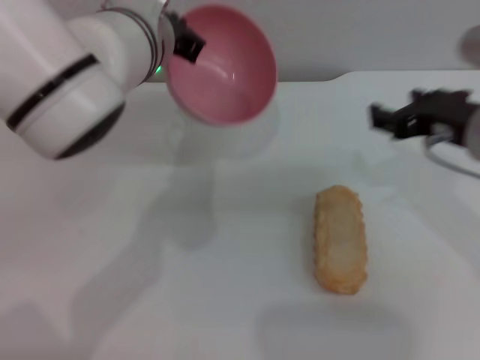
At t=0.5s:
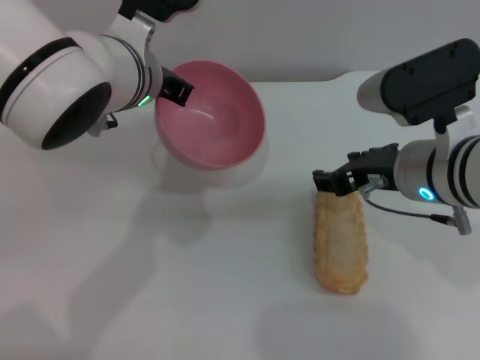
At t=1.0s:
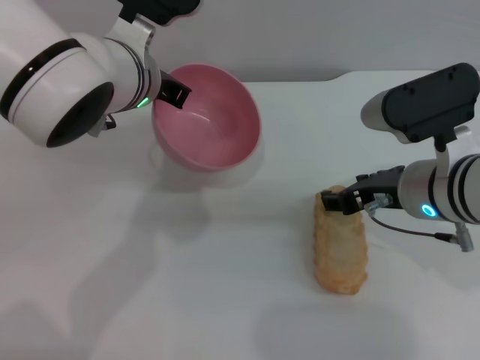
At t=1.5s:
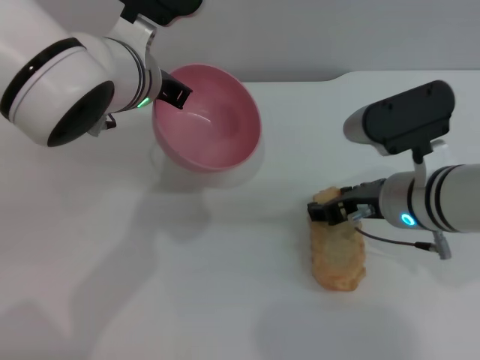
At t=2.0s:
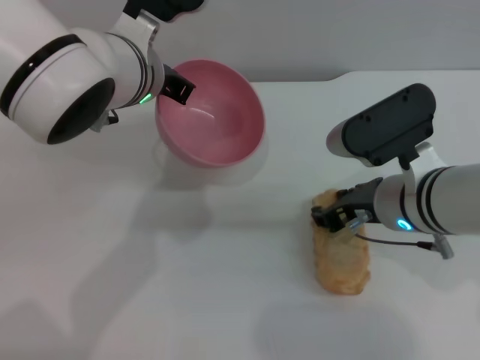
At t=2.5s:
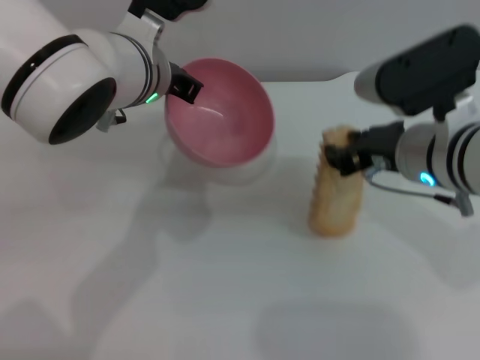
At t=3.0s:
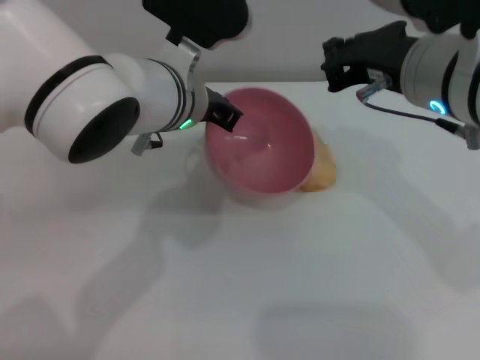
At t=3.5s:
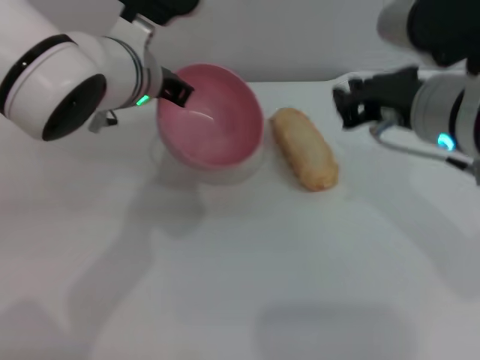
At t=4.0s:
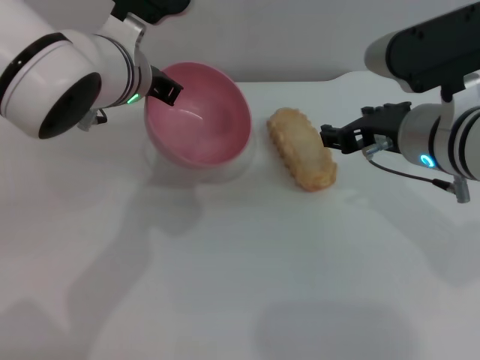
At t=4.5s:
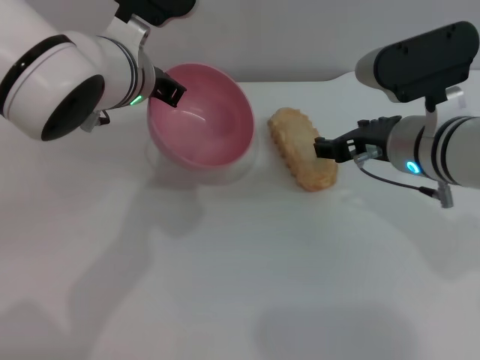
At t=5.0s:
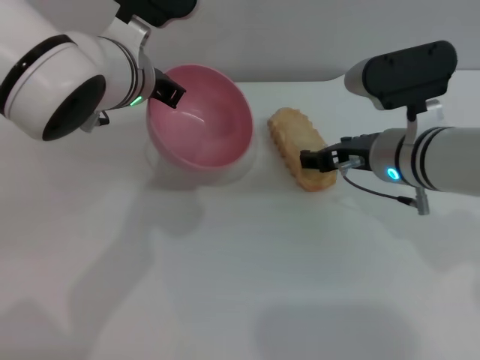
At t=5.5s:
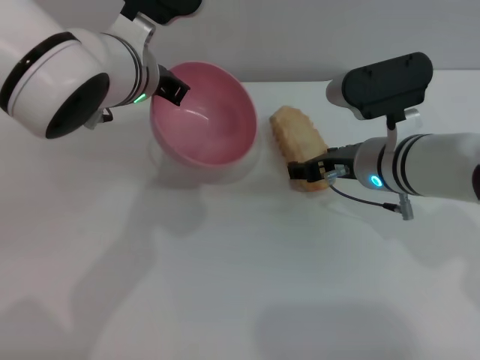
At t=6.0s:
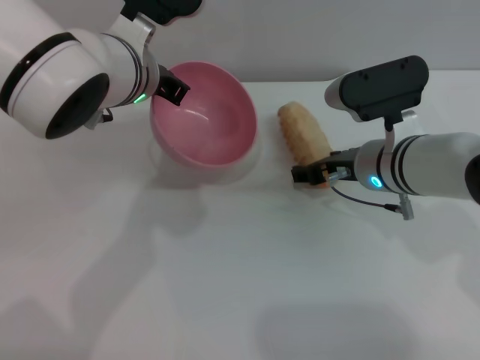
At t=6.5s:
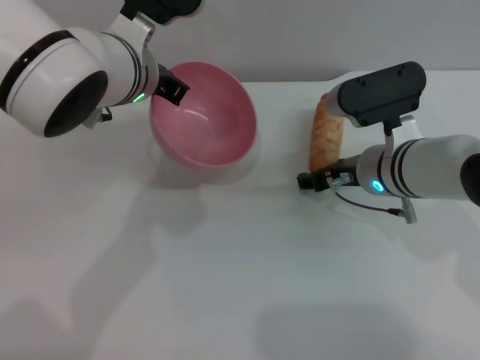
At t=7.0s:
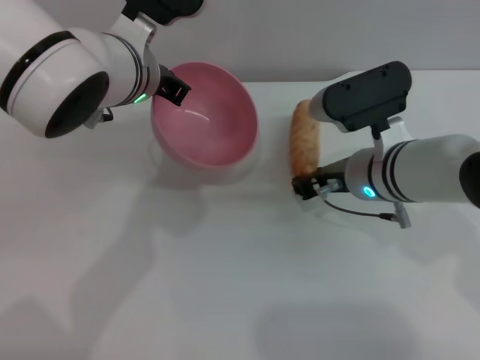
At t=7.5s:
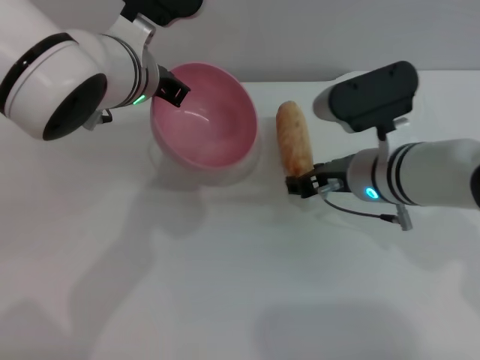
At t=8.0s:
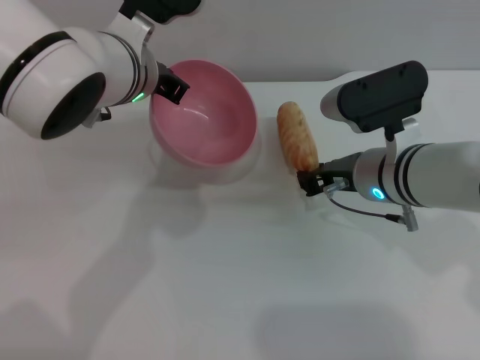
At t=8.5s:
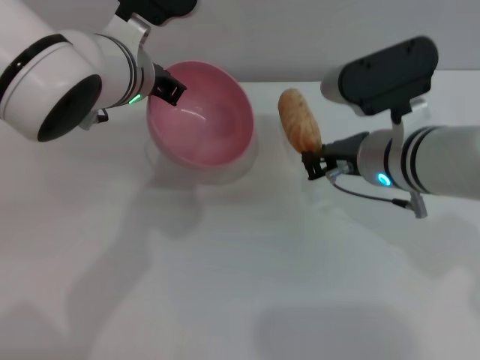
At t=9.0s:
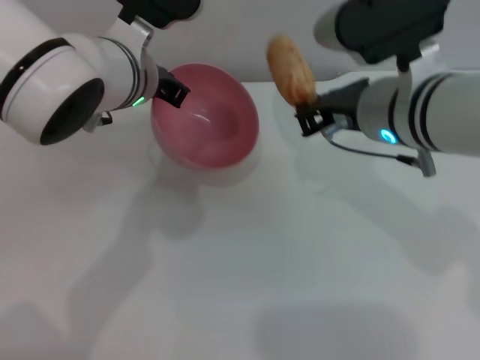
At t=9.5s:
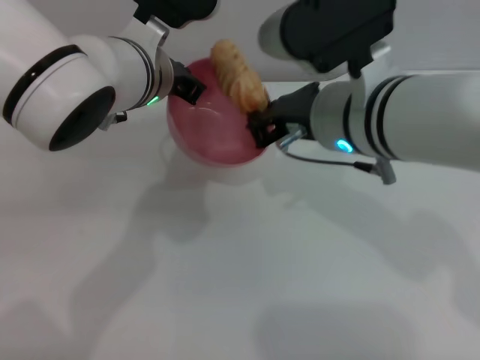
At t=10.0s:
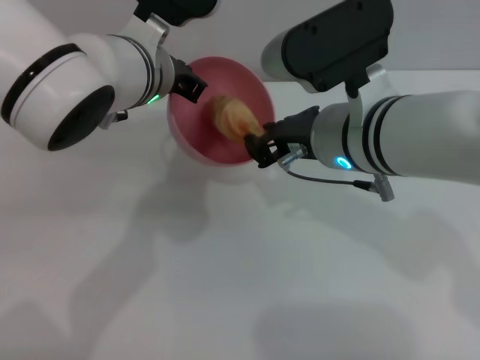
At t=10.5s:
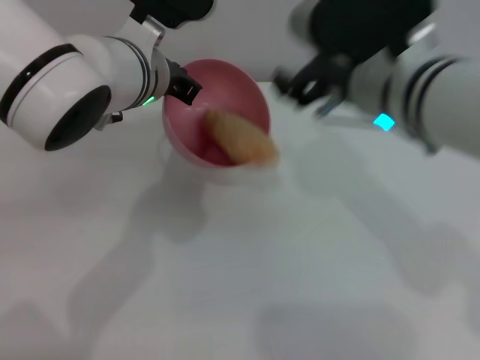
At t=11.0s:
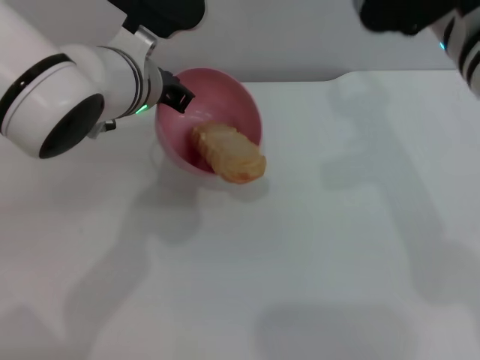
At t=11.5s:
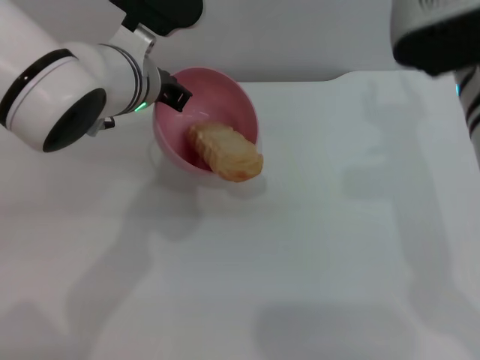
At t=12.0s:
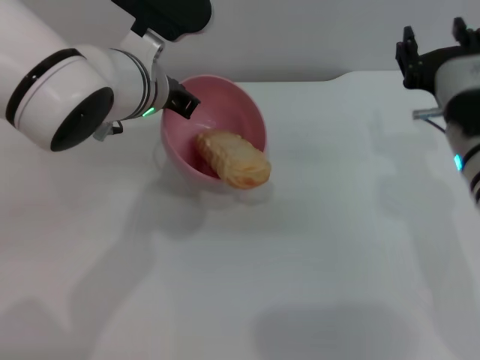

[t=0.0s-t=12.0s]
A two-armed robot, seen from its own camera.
Task of the whole recording: put the bread into the pink bowl and pour it out repeatedly.
Step, t=0.0s to t=8.5s: Pick up the bread with the right gripper.
Step, t=9.0s to t=10.5s: Place the bread into the bowl.
t=0.0s to t=2.0s: The right gripper goes some 10 cm downward and to the left.
t=2.0s to t=4.0s: The right gripper goes some 5 cm upward, and closes and opens again.
t=4.0s to t=6.0s: The right gripper travels downward by some 10 cm.
t=6.0s to t=8.0s: The right gripper closes.
t=8.0s to t=10.0s: The right gripper moves upward and to the left, about 10 cm.
t=10.0s to t=12.0s: The right gripper heads to the right, covering roughly 10 cm, and opens up.

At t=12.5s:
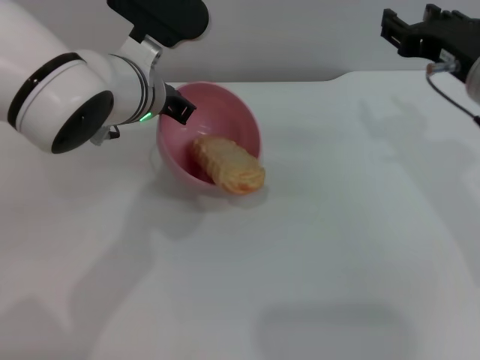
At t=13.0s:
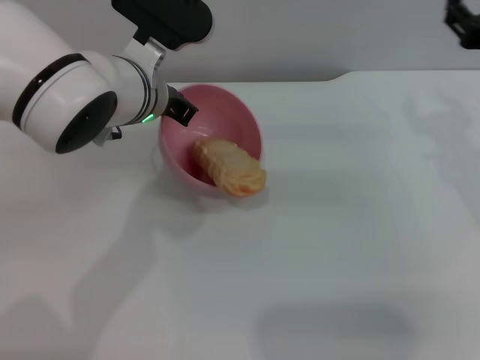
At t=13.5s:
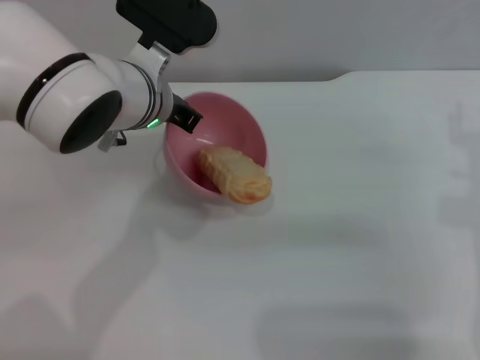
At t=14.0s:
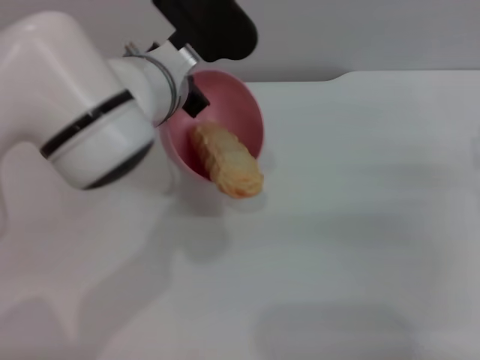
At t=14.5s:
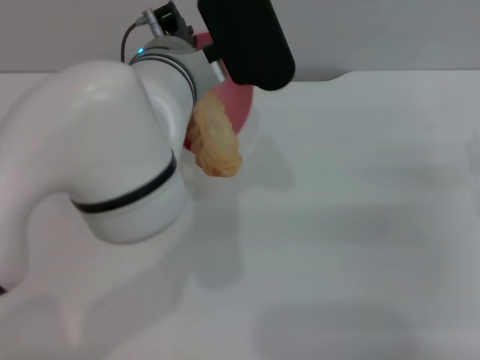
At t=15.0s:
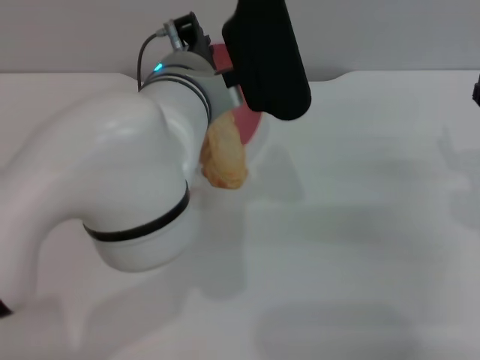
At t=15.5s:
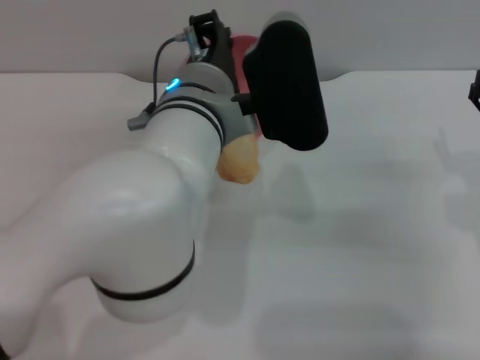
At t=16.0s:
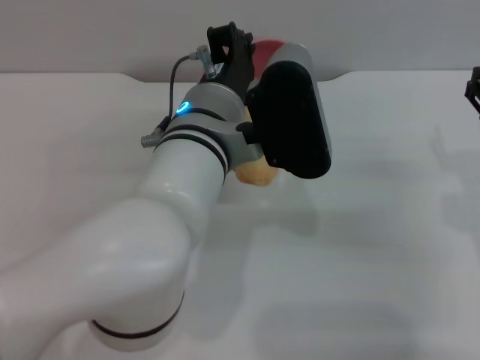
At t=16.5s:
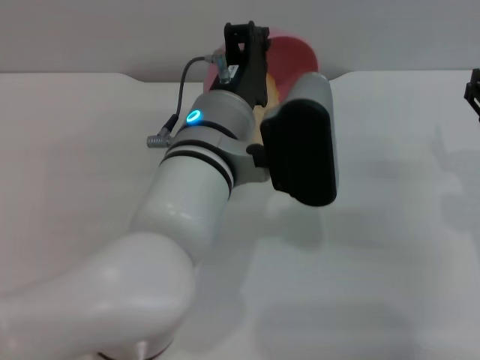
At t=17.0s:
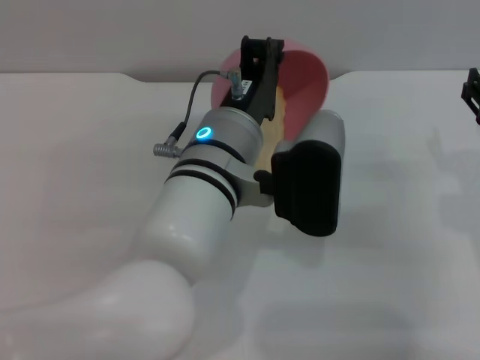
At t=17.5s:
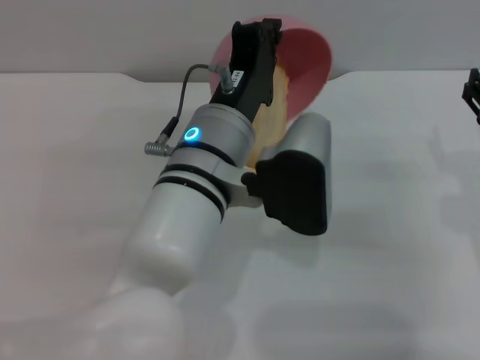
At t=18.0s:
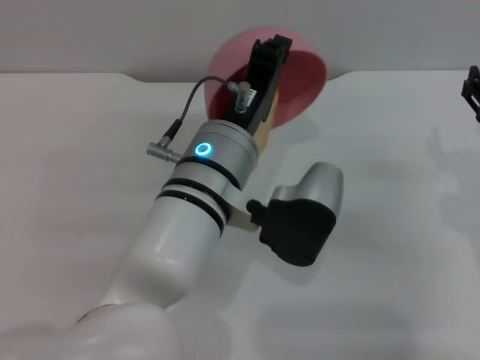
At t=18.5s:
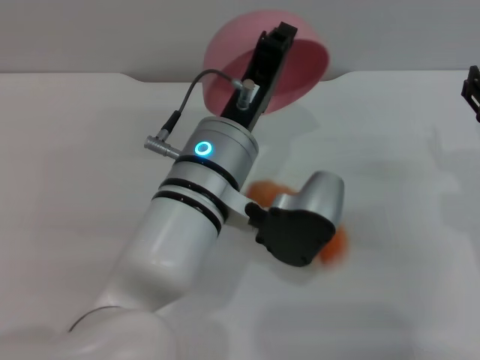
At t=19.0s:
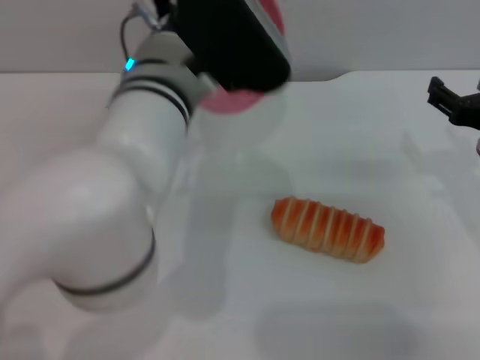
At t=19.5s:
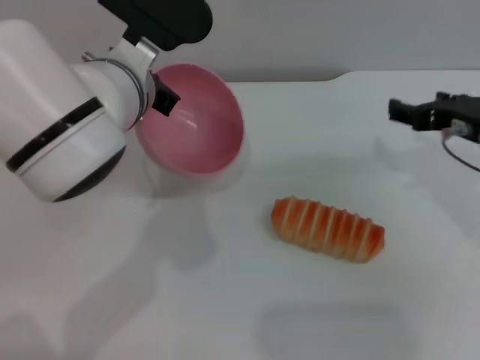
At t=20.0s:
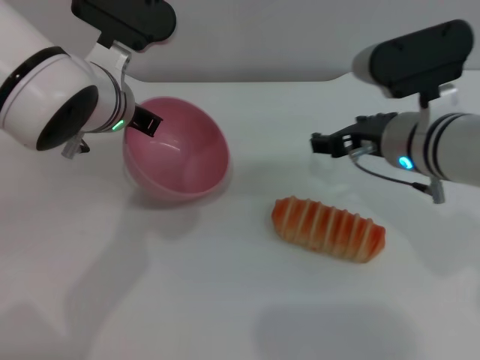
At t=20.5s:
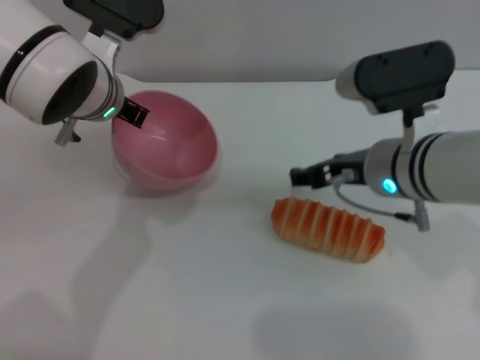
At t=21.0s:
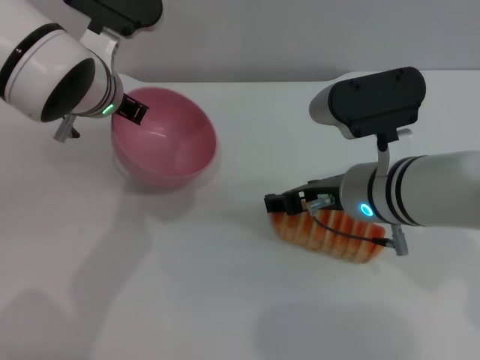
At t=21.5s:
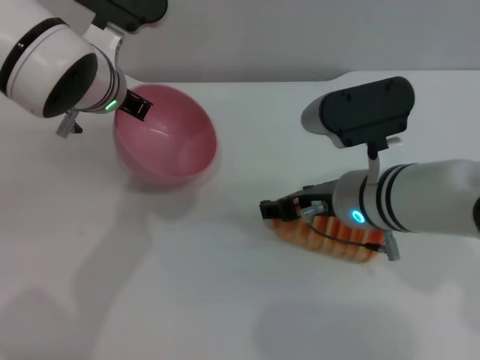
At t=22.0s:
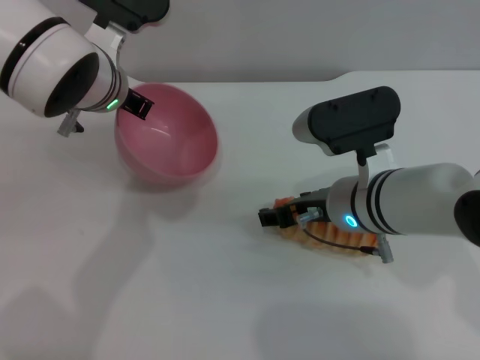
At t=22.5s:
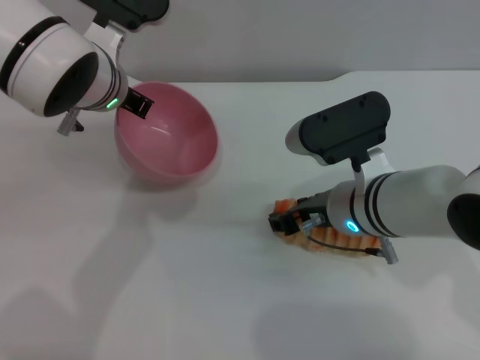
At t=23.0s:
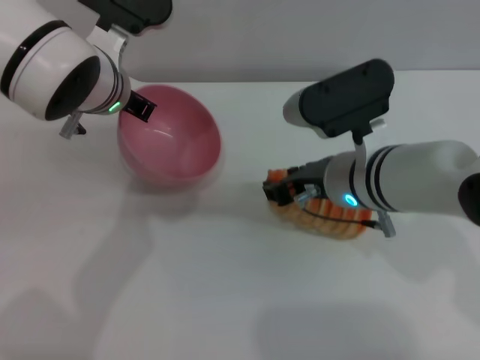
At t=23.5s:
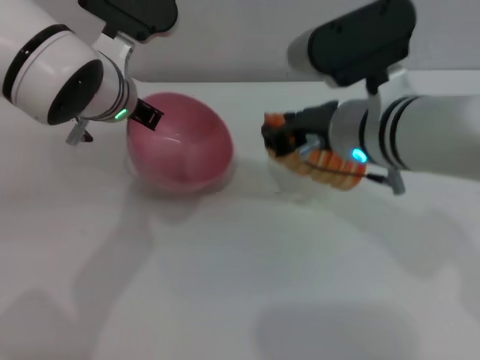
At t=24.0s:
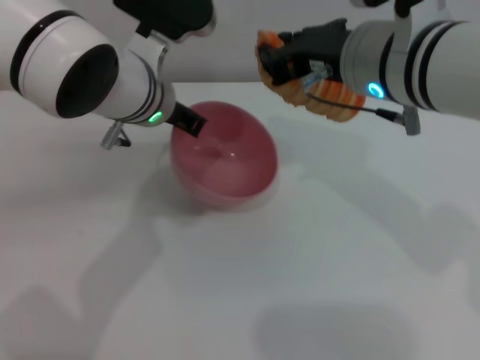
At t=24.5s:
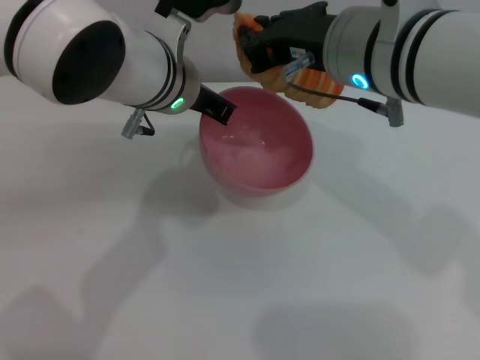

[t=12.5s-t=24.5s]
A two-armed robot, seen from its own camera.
Task of the whole recording: put the bread into the pink bowl and pour it out repeatedly.
Step, t=12.5s to t=18.5s: Pour the bread out of the bowl.
Step, t=19.0s to t=23.5s: Pick up the bread with the right gripper.
t=12.5s to t=14.5s: The right gripper is displaced to the right, downward and backward by approximately 15 cm; the left gripper ends up approximately 5 cm from where it was.
t=14.5s to t=16.5s: The left gripper changes place by approximately 5 cm.
t=18.5s to t=20.5s: The left gripper moves forward and to the left, roughly 15 cm, while the right gripper is displaced to the left by some 10 cm.
t=20.5s to t=22.5s: The right gripper shifts by some 5 cm.
t=22.5s to t=24.5s: The left gripper is displaced to the right by approximately 5 cm, while the right gripper heads upward, covering some 15 cm, and closes.

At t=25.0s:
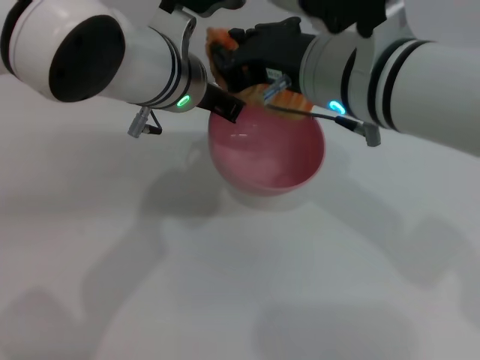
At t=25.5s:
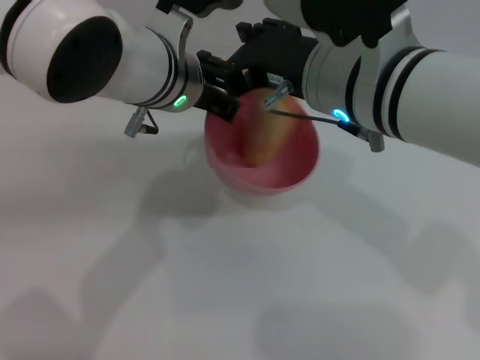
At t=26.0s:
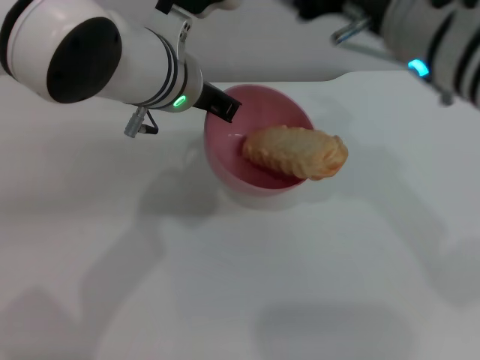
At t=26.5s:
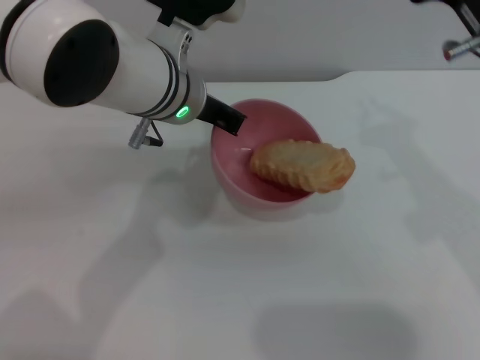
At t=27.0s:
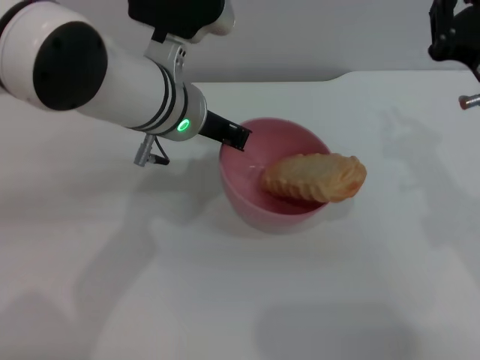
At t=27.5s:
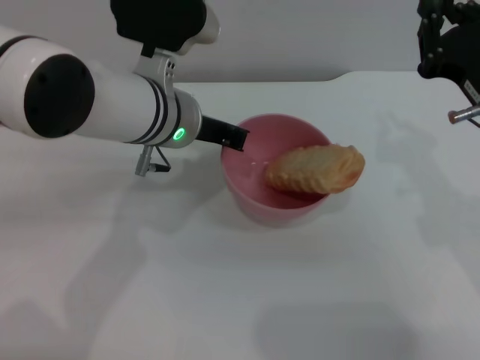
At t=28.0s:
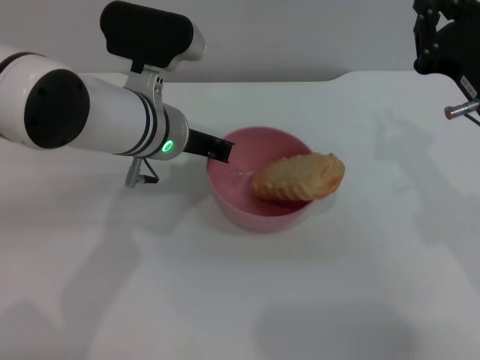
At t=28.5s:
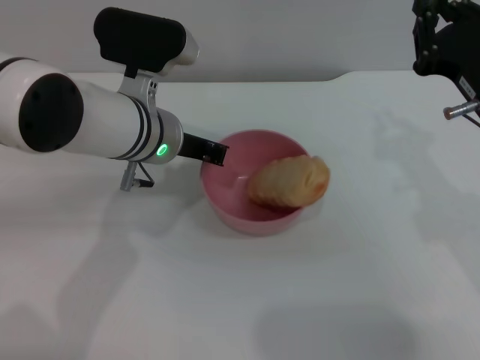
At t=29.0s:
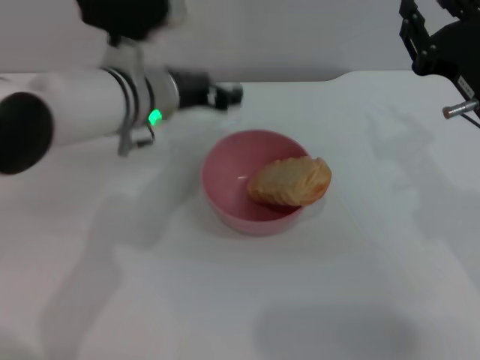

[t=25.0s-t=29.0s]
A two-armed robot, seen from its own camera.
Task of the whole recording: put the bread into the pink bowl and pour it out repeatedly.
Step, t=26.0s to t=28.5s: Place the bowl on the table.
t=25.0s to t=27.0s: The right gripper goes some 15 cm to the right and downward, and opens, then closes again.
